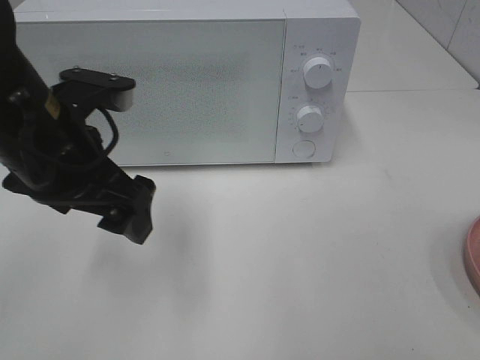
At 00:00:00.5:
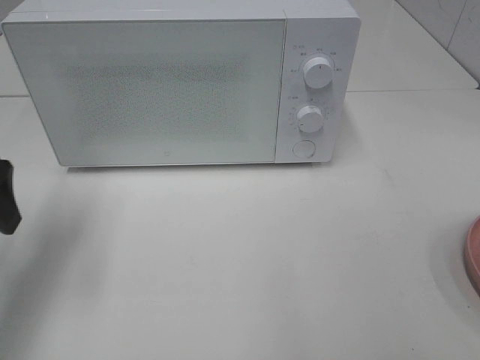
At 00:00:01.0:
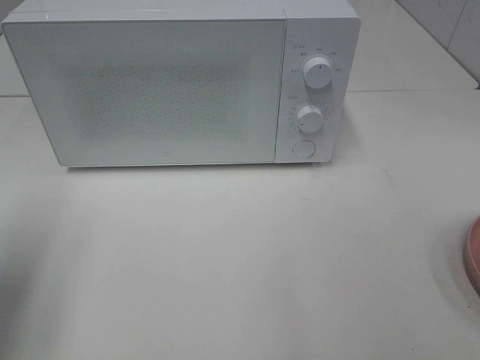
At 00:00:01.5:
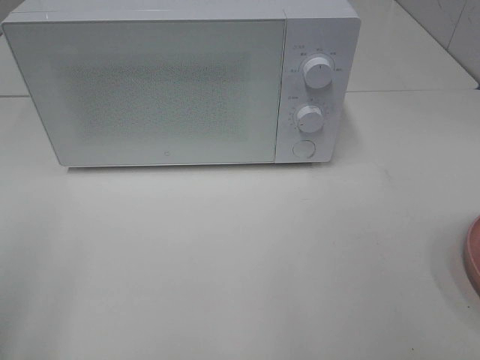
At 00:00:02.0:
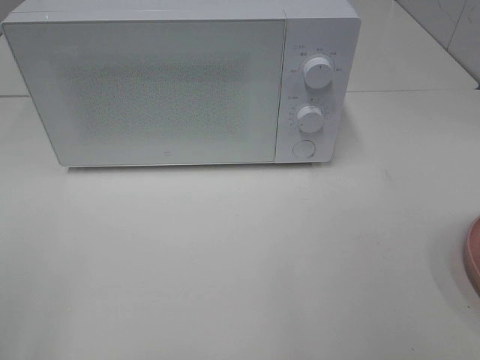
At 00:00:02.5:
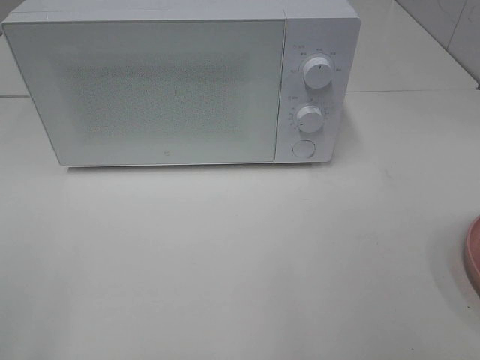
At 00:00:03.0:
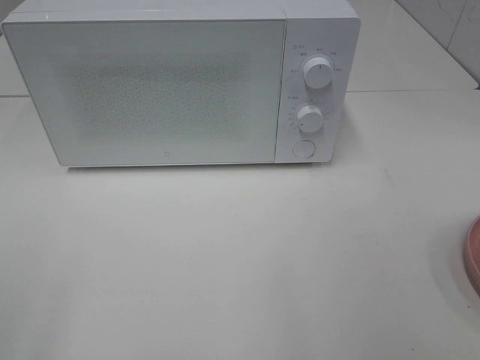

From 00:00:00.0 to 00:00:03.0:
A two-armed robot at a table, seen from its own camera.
Task of the whole recording: Heat the burger.
From 00:00:00.0 to 00:00:01.5: The left gripper shifts some 25 cm backward and to the left.

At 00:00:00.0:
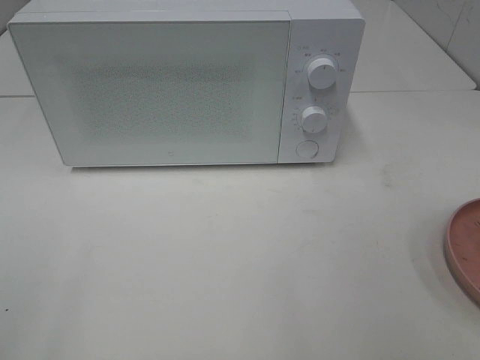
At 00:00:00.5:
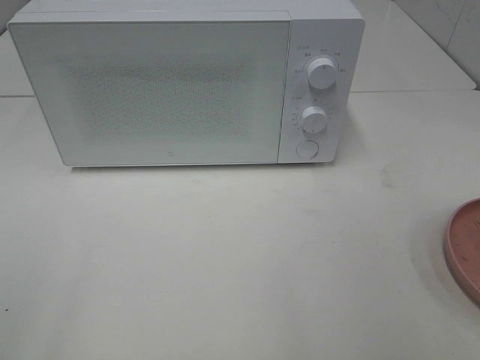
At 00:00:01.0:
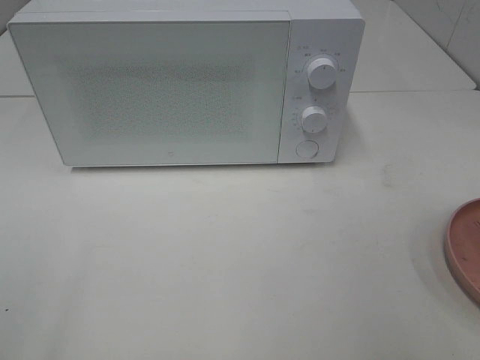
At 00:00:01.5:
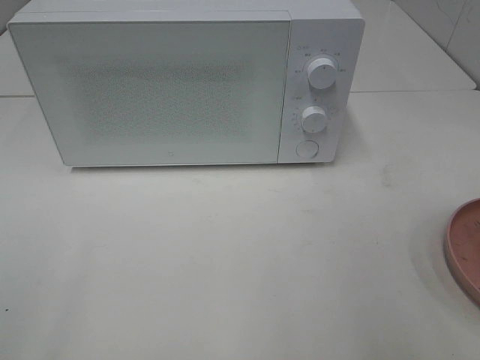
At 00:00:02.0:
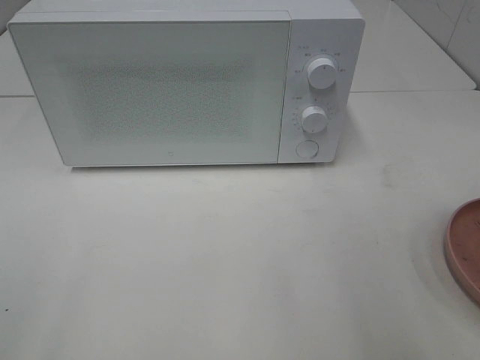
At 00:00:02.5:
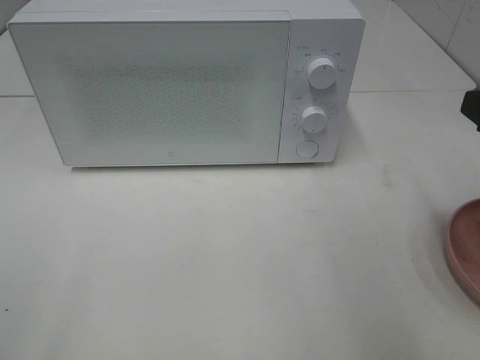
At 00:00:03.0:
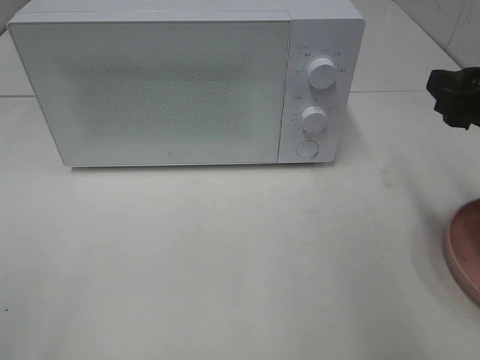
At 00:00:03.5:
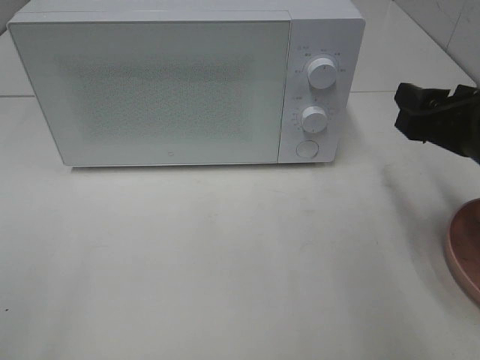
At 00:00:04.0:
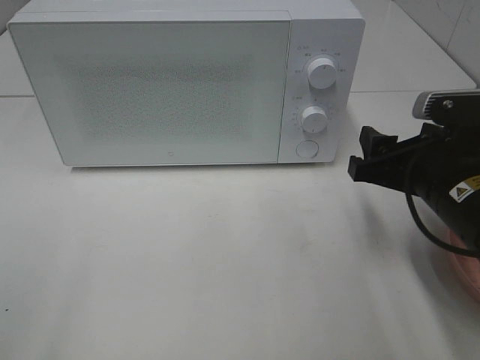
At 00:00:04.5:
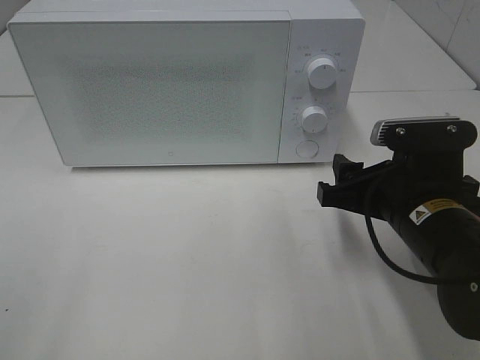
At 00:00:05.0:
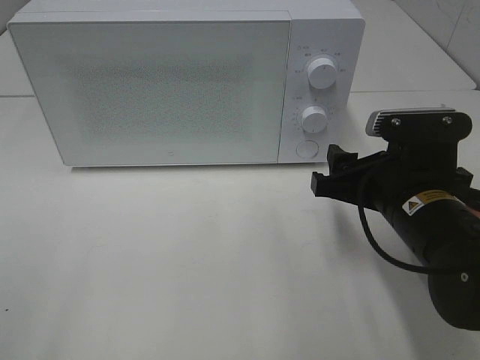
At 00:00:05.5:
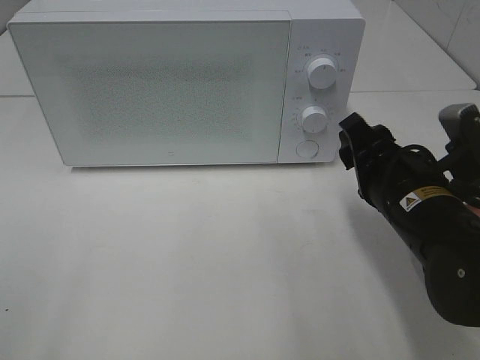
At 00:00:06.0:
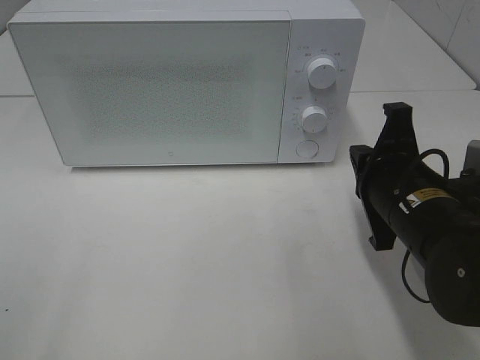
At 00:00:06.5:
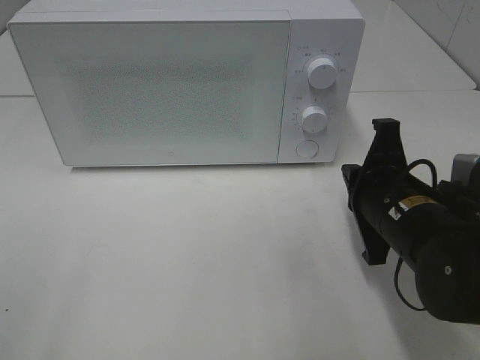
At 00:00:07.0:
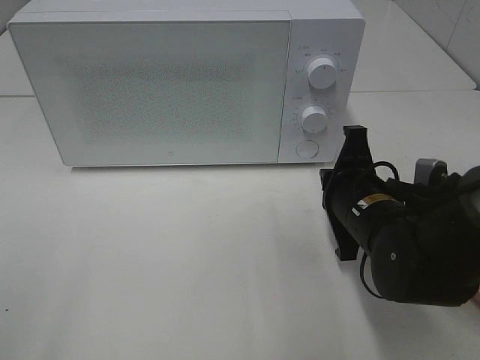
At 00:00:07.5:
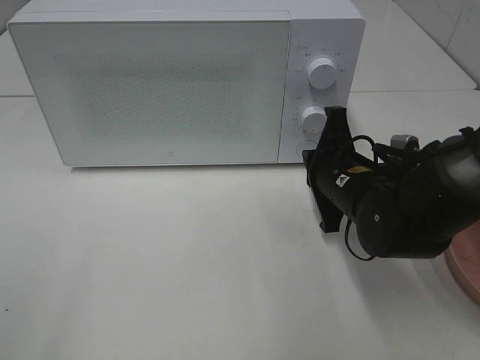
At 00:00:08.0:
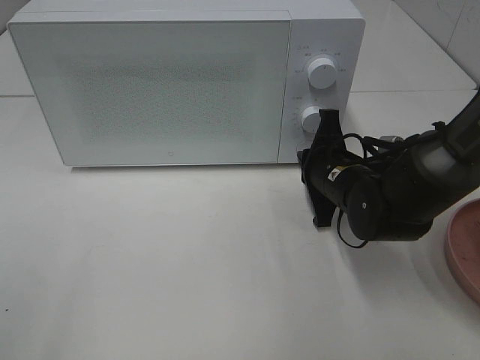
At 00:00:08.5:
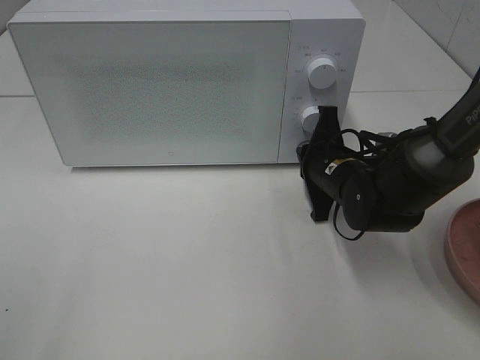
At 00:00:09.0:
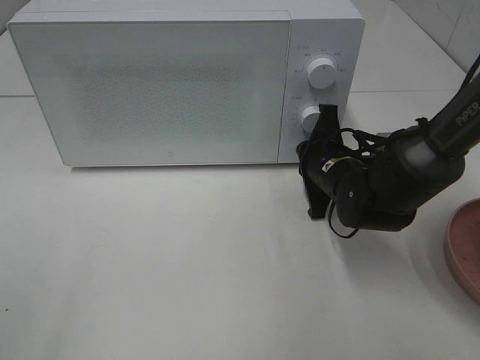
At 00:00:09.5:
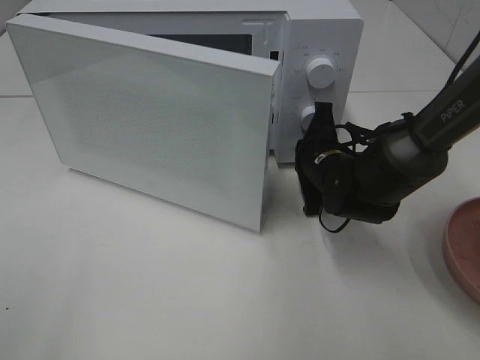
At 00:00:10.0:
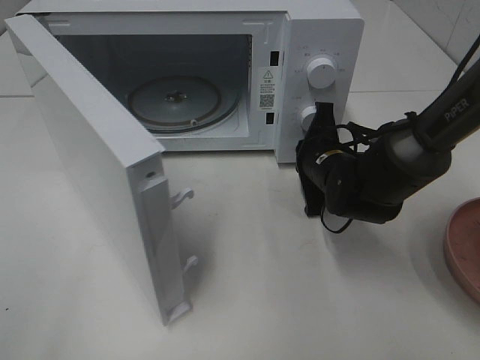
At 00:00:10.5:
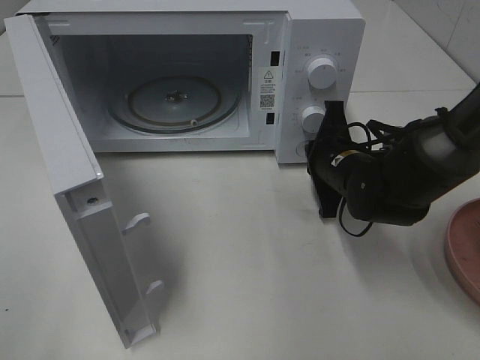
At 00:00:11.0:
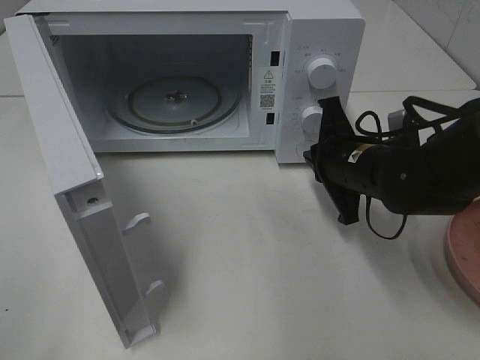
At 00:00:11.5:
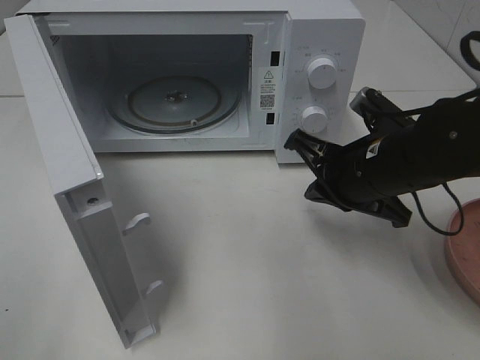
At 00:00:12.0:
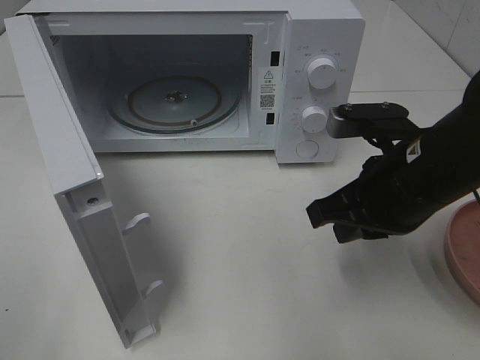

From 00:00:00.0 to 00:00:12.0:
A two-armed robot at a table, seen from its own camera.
Task of the whole recording: Heat the burger.
Step, from 00:00:00.0 to 00:00:10.5: Right hand: press the switch.
From 00:00:02.0 to 00:00:04.0: The right gripper heads downward, forward and to the left, covering some 15 cm.
From 00:00:04.0 to 00:00:06.0: The right gripper closes its fingers.
From 00:00:06.0 to 00:00:08.0: The right gripper goes roughly 10 cm forward and downward.
From 00:00:10.0 to 00:00:12.0: The right gripper heads backward and upward, covering roughly 15 cm.

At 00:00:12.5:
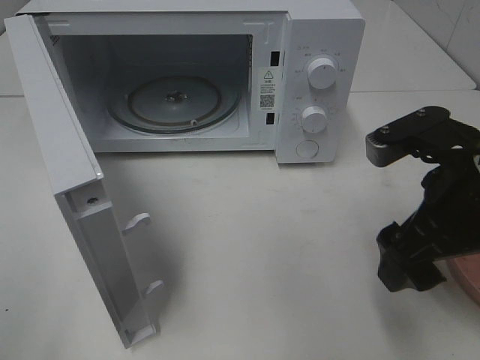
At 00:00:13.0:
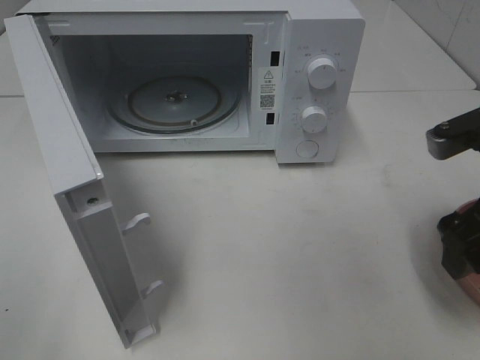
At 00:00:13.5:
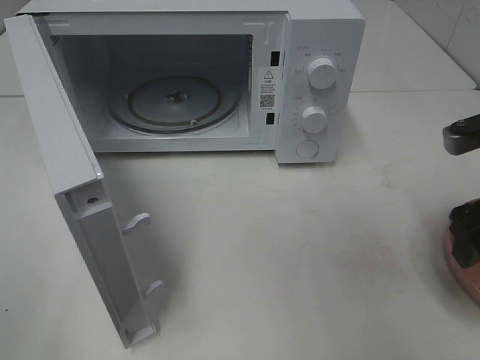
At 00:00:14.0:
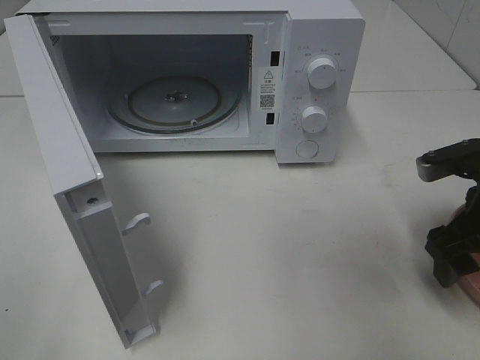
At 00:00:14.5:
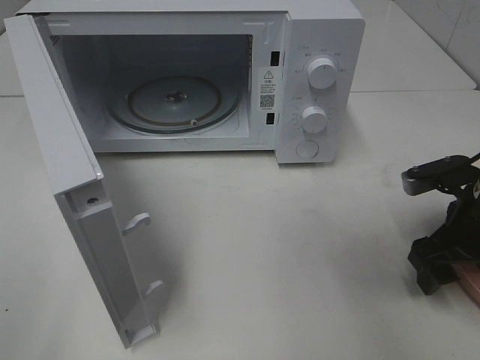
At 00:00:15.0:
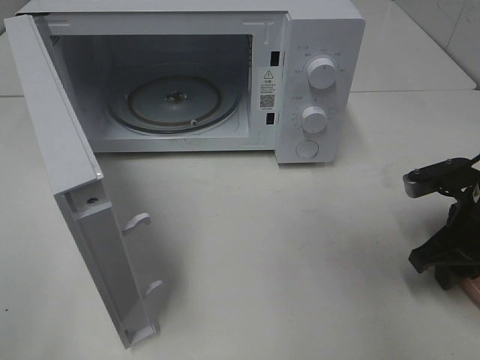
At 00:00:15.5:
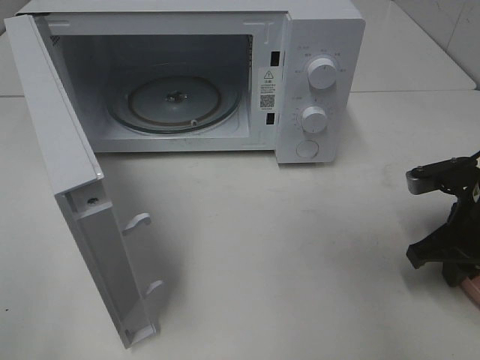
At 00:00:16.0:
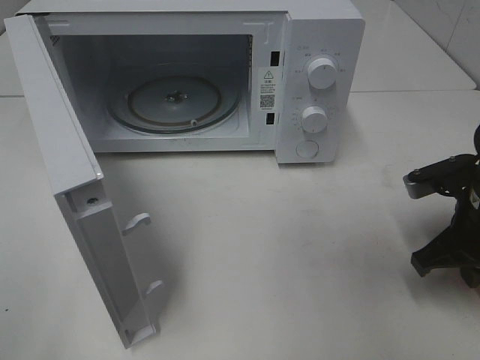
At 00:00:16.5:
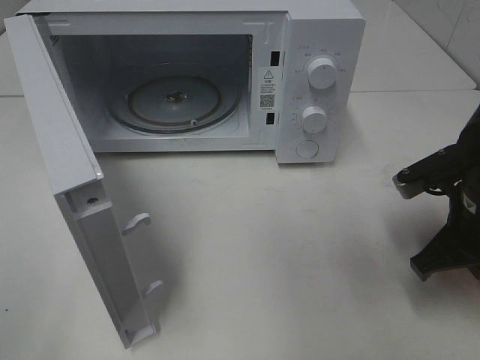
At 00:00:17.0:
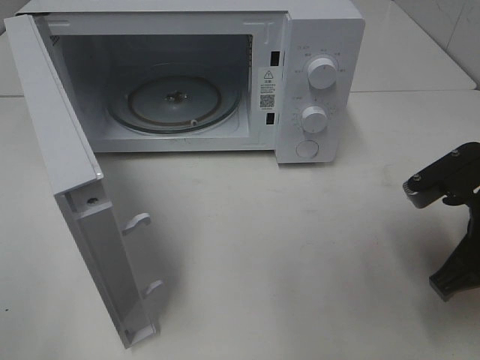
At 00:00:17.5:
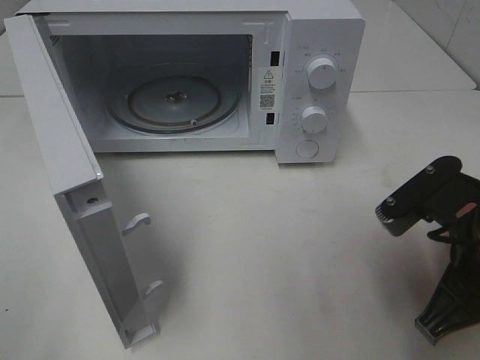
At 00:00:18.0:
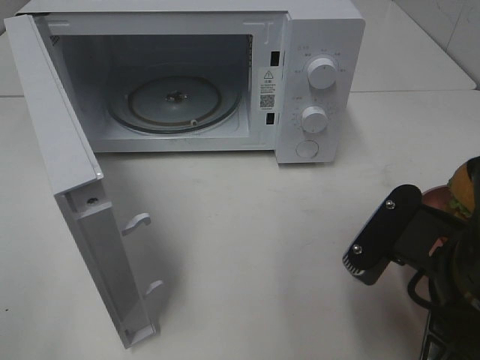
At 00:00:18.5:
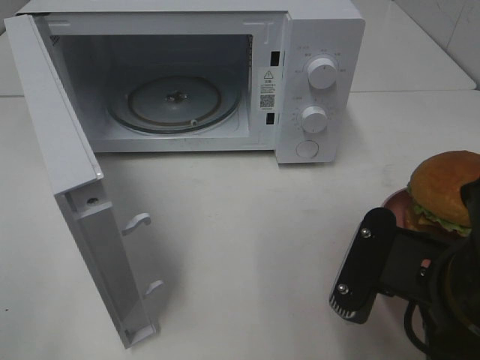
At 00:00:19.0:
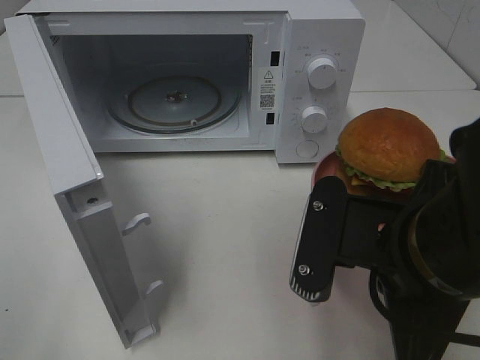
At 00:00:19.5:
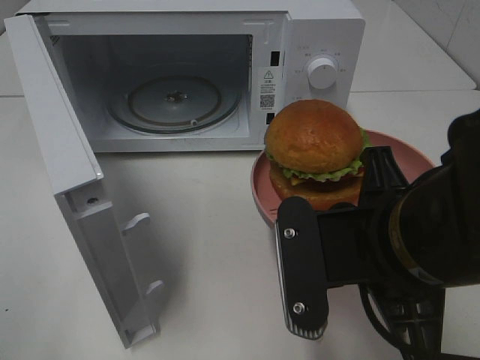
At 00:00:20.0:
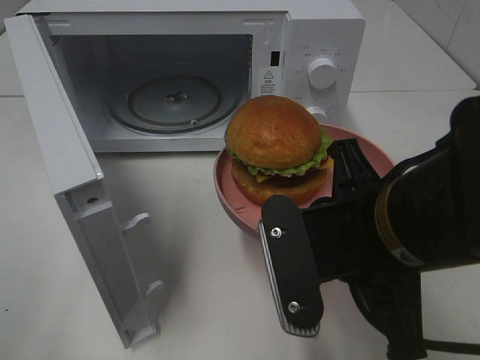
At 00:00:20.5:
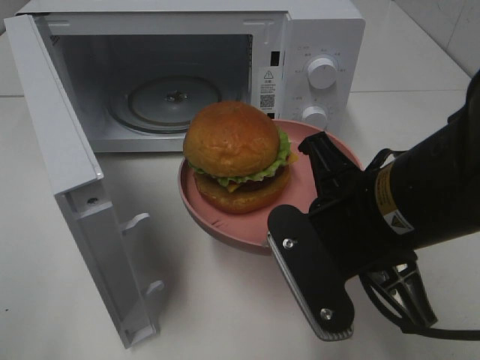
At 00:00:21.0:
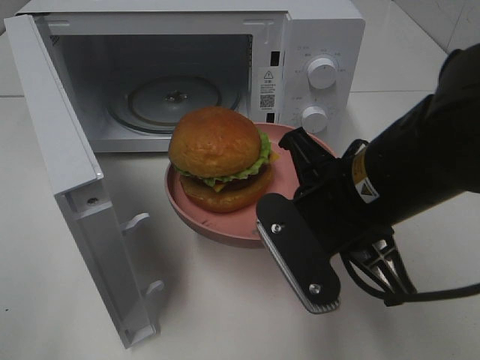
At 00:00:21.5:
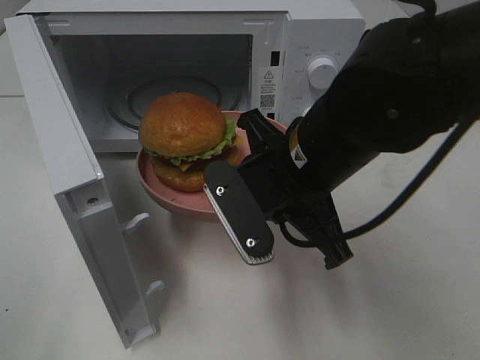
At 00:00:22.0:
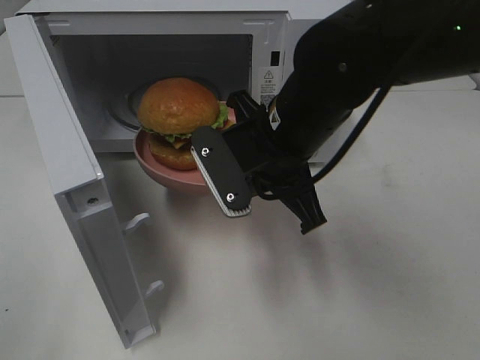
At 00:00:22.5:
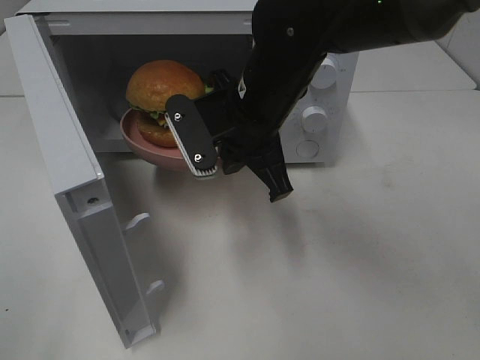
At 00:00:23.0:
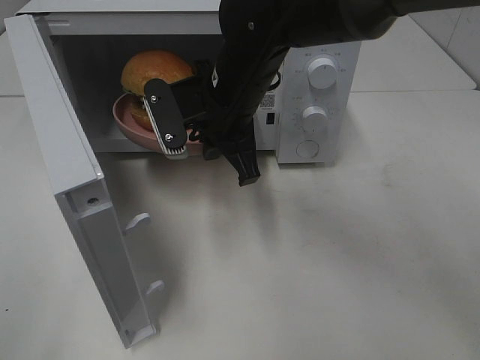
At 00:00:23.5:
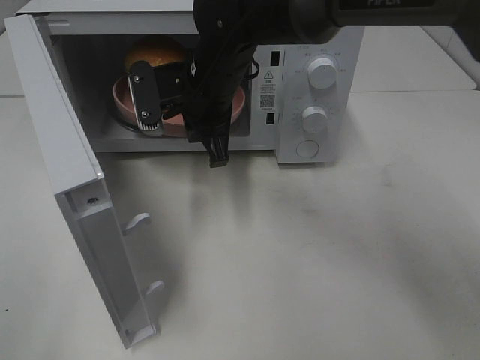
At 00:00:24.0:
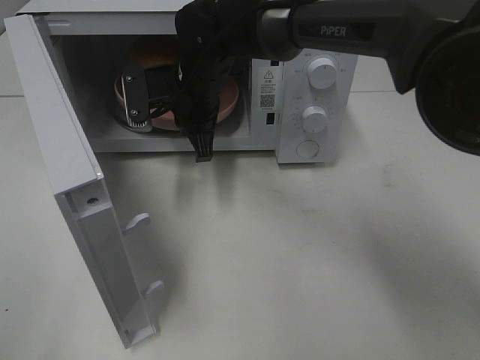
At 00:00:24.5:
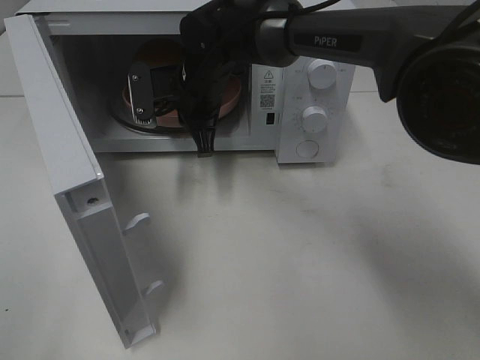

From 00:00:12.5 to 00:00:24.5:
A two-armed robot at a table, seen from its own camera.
Task of the whole recording: Heat the burger.
Step, from 00:00:12.5 to 00:00:16.0: Right hand: grab the plate with the hamburger.
From 00:00:12.5 to 00:00:14.5: The right gripper is displaced downward, to the right and forward by roughly 15 cm.
From 00:00:14.5 to 00:00:16.5: The right gripper closes its fingers.
From 00:00:16.5 to 00:00:18.5: The right gripper is displaced backward and to the left by some 15 cm.
From 00:00:18.5 to 00:00:20.5: The right gripper heads forward, covering approximately 5 cm.
From 00:00:20.5 to 00:00:22.5: The right gripper shifts about 15 cm forward and to the left.
From 00:00:22.5 to 00:00:24.5: The right gripper goes approximately 15 cm forward and to the left.
